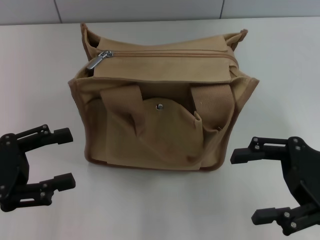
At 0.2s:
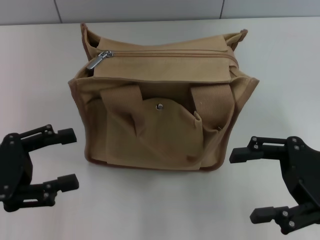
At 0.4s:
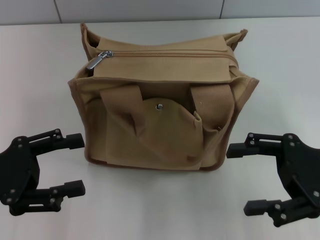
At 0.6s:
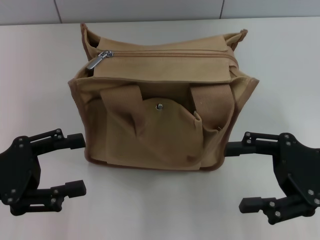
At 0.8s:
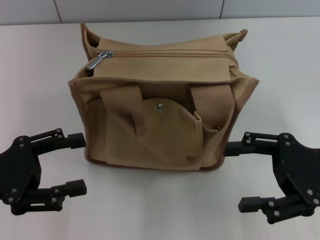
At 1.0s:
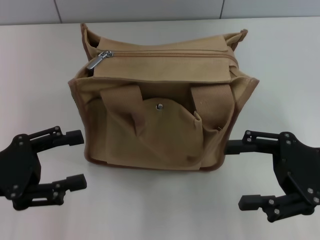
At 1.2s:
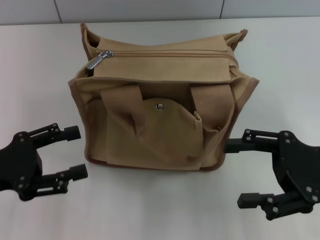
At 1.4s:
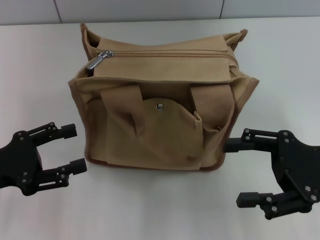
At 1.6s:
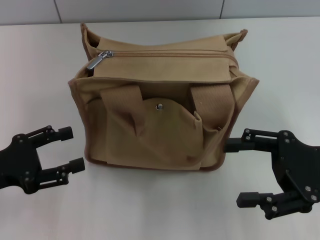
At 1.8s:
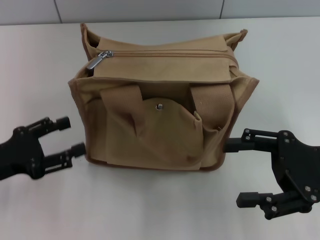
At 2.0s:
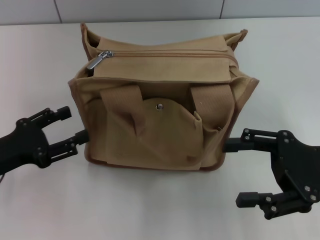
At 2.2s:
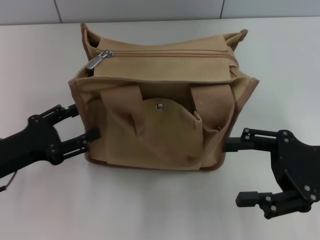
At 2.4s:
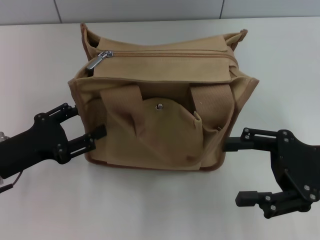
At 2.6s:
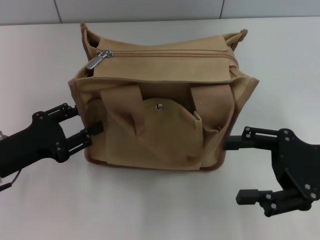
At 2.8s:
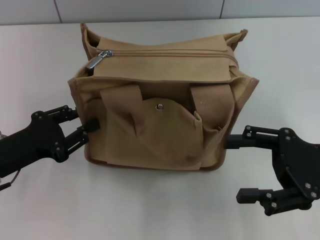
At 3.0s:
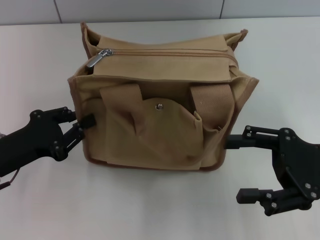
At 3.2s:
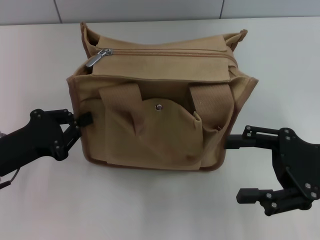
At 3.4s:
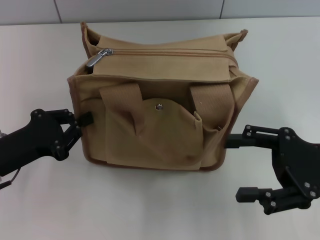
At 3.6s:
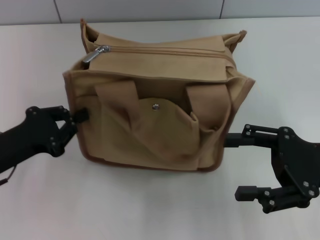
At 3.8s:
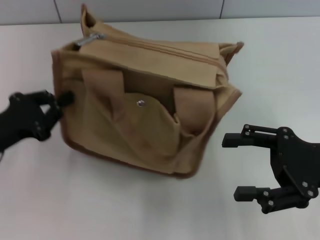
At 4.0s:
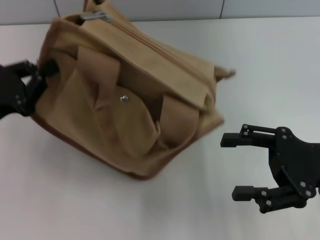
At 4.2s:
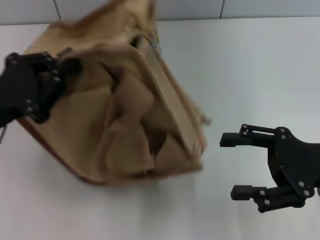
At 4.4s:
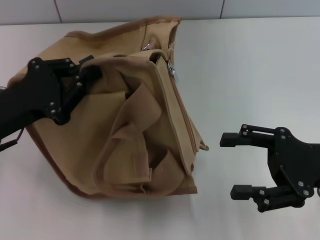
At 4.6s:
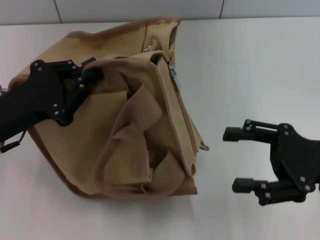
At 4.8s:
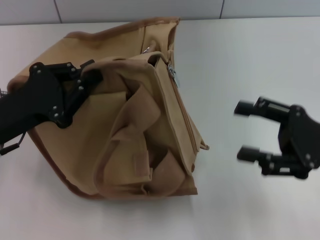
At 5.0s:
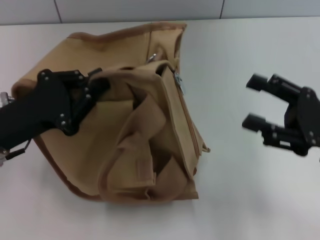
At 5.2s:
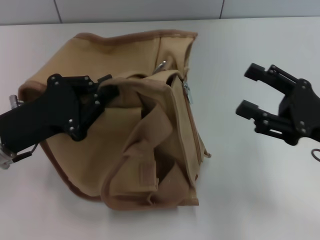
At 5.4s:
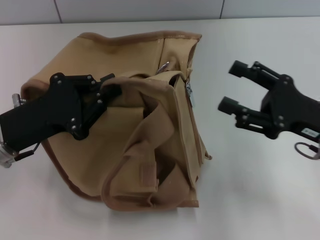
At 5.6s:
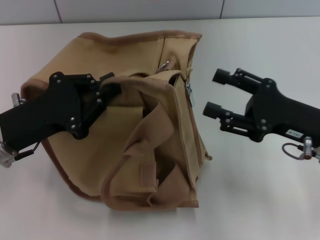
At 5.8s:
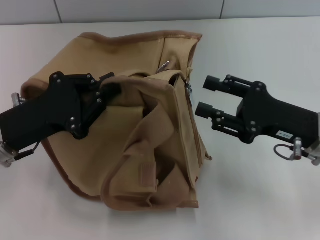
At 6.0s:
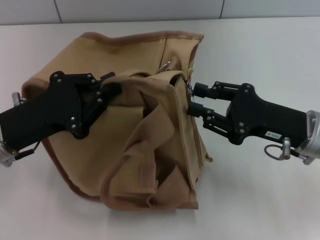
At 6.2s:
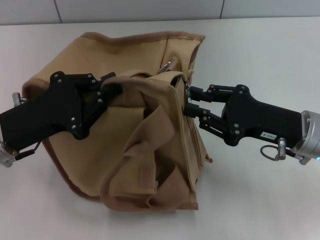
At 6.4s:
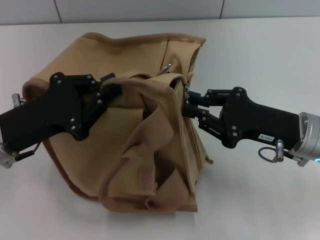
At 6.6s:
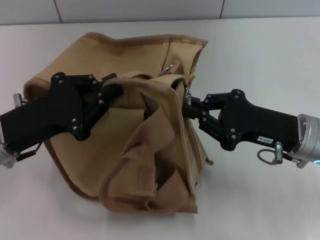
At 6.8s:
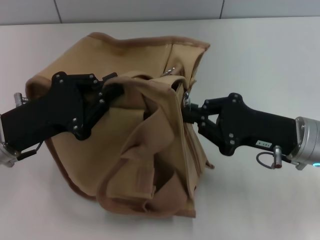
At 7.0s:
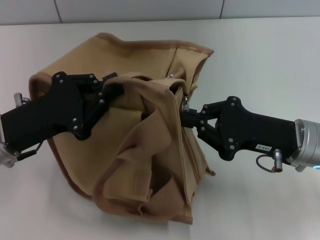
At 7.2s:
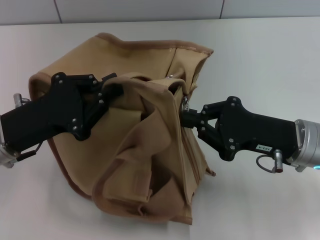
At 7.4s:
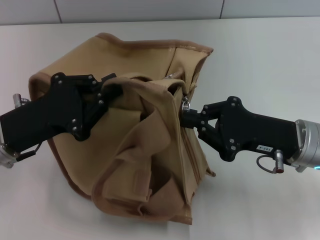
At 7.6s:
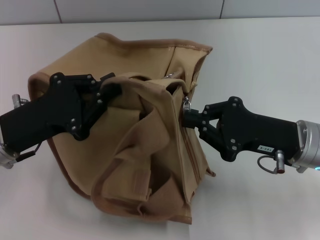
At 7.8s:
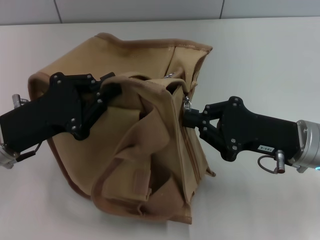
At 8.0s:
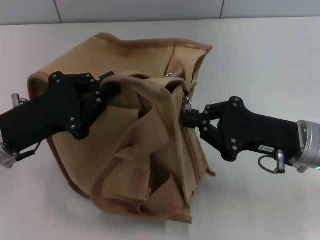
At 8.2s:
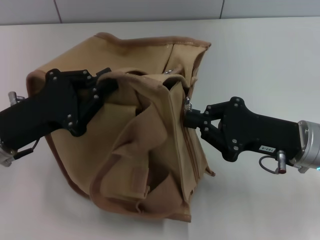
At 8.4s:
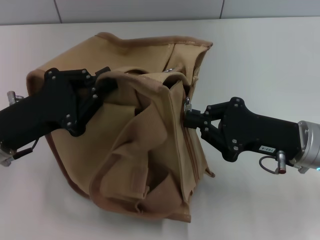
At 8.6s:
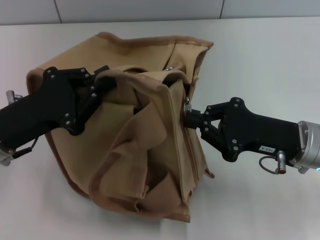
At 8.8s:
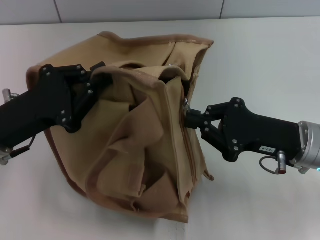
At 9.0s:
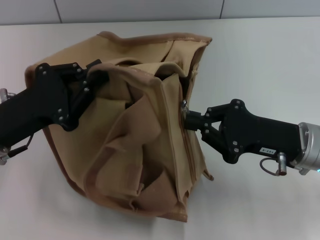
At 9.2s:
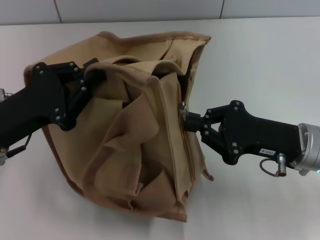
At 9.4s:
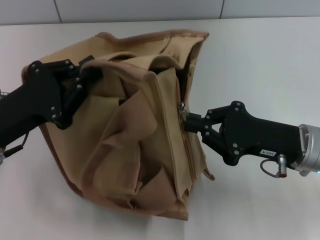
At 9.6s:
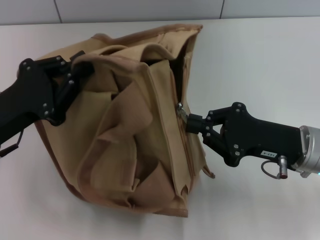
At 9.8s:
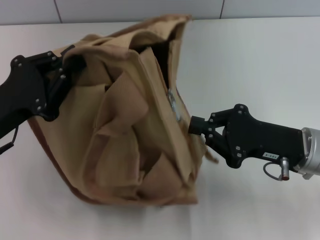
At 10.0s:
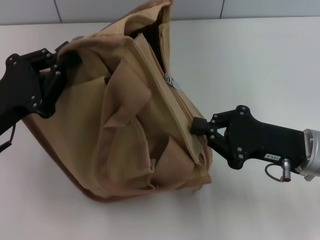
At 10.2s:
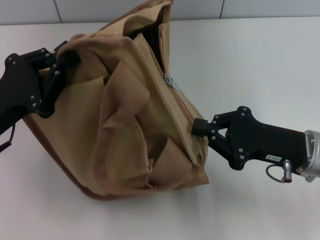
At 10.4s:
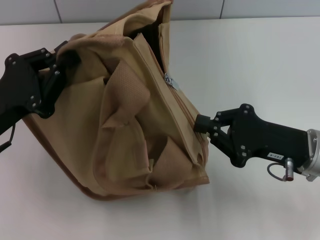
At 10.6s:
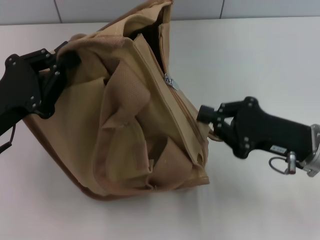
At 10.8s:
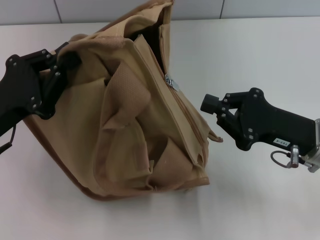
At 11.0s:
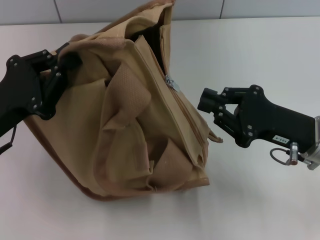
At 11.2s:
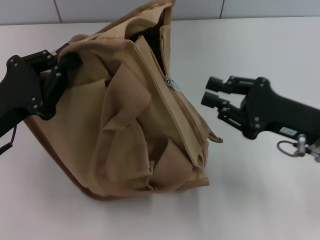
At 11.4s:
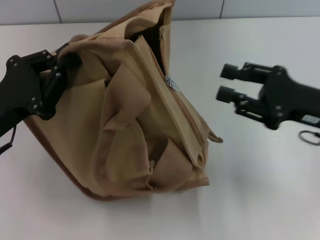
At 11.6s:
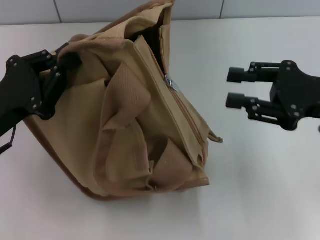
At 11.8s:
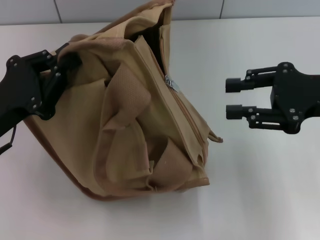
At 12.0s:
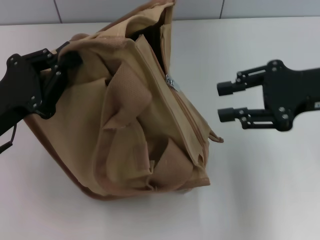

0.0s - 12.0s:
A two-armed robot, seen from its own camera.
0.0s - 1.6s: There are only small adjustments of the grippers.
1.6s - 3.0s: The left gripper closes.
3.0s - 4.4s: The left gripper moves approximately 5 cm, and closes.
4.4s - 6.0s: The right gripper ends up approximately 5 cm from where it was.
6.0s - 7.6s: The right gripper closes.
7.6s - 9.0s: The two grippers keep their place.
10.4s - 12.0s: The right gripper is displaced upward by some 10 cm, and opens up.

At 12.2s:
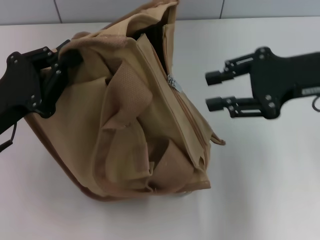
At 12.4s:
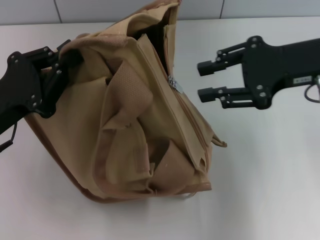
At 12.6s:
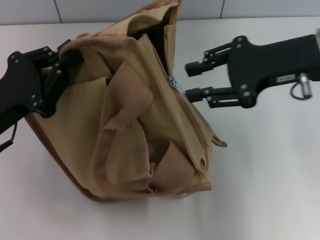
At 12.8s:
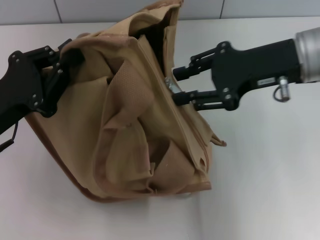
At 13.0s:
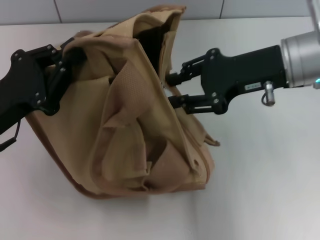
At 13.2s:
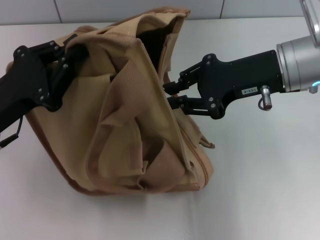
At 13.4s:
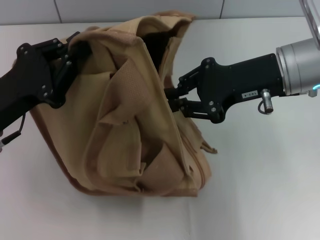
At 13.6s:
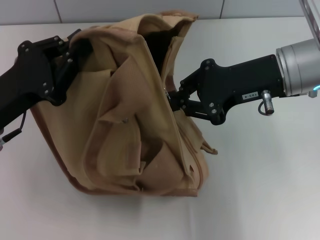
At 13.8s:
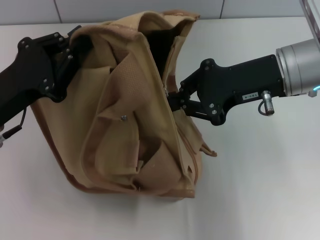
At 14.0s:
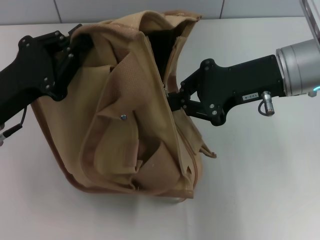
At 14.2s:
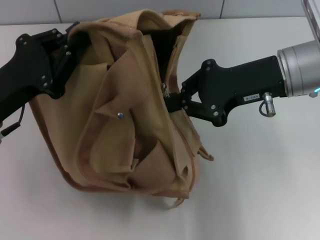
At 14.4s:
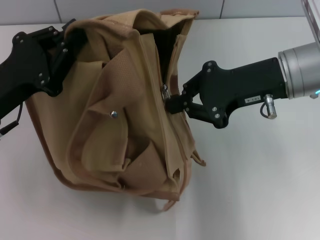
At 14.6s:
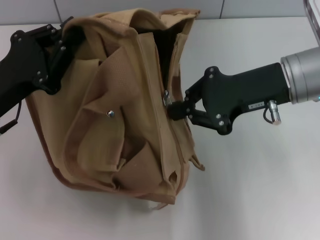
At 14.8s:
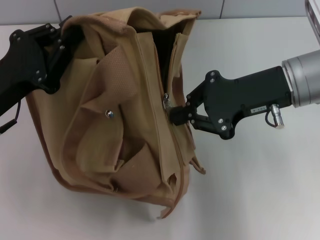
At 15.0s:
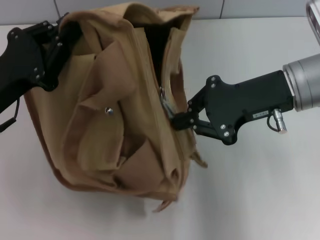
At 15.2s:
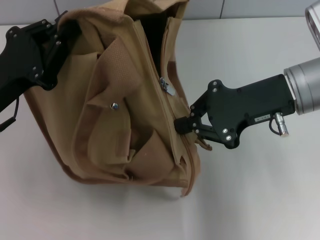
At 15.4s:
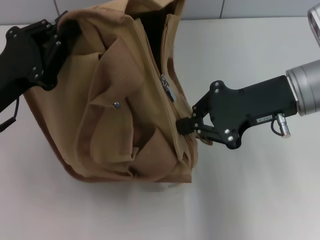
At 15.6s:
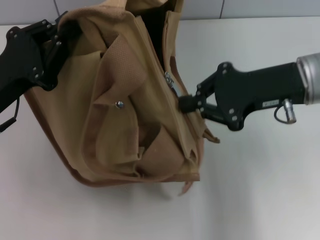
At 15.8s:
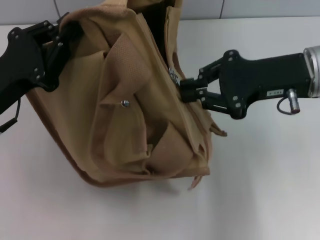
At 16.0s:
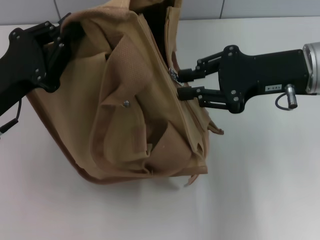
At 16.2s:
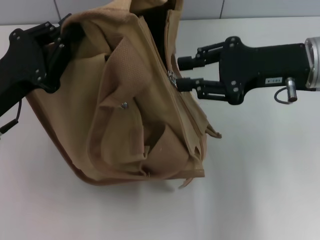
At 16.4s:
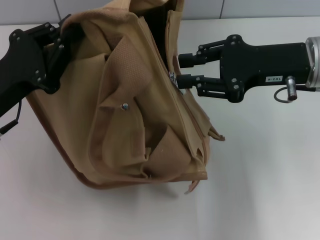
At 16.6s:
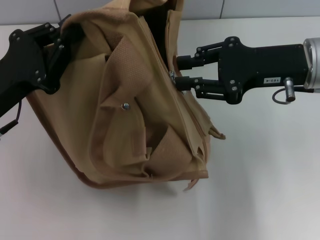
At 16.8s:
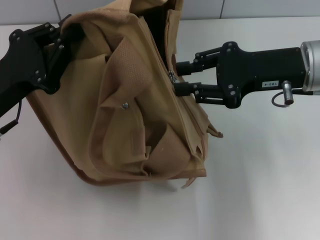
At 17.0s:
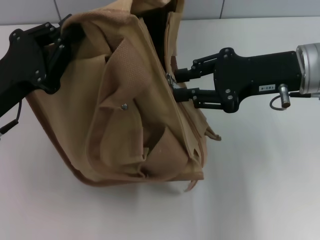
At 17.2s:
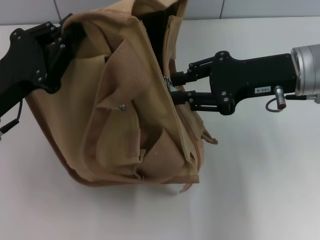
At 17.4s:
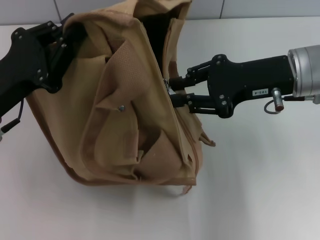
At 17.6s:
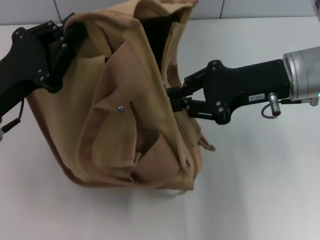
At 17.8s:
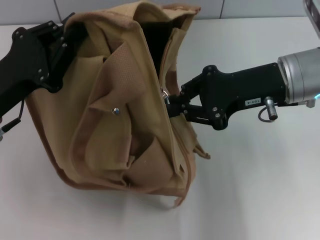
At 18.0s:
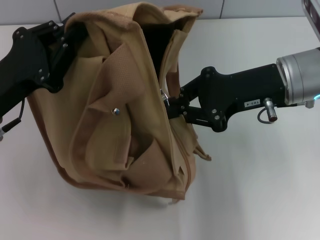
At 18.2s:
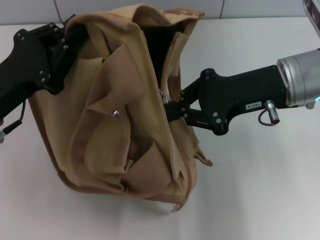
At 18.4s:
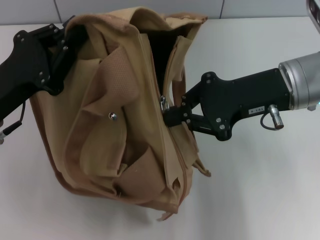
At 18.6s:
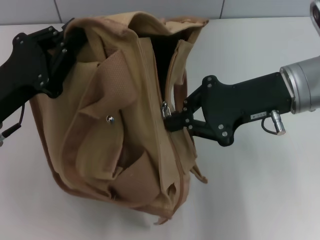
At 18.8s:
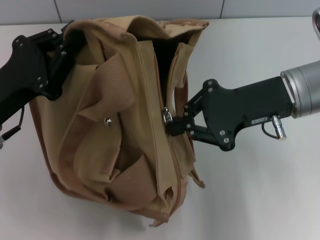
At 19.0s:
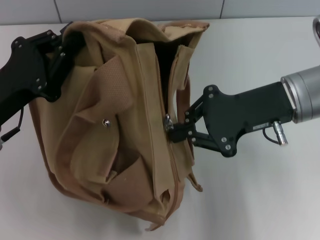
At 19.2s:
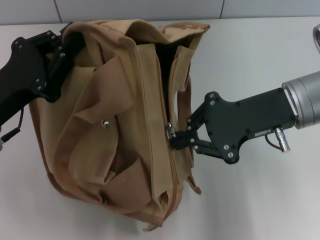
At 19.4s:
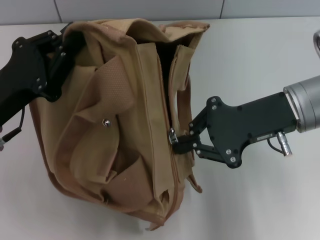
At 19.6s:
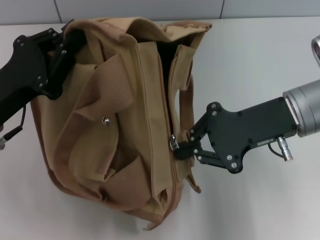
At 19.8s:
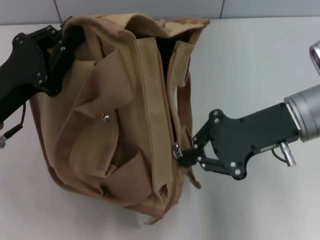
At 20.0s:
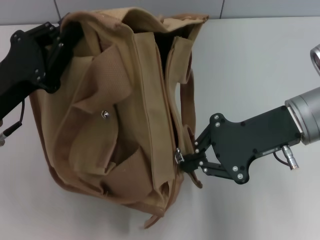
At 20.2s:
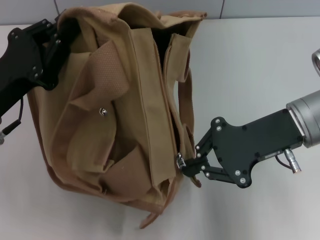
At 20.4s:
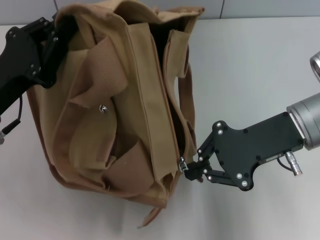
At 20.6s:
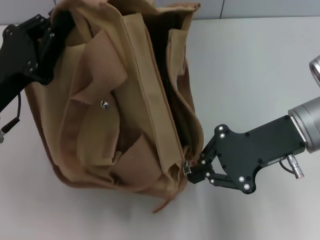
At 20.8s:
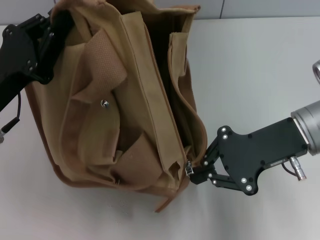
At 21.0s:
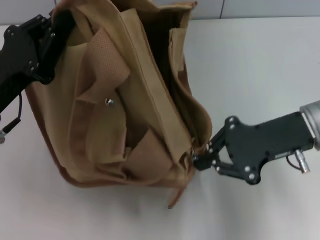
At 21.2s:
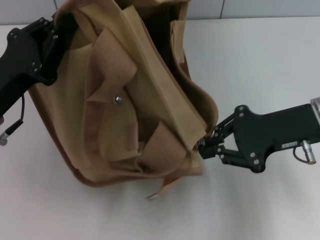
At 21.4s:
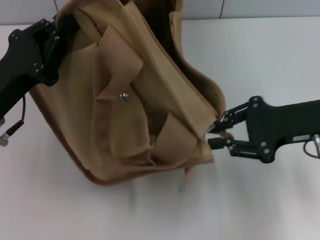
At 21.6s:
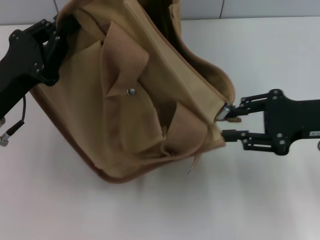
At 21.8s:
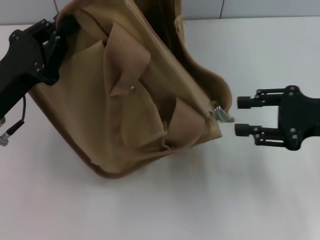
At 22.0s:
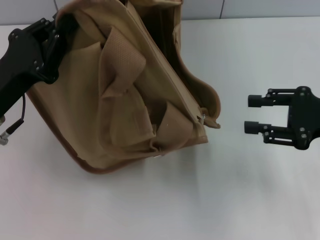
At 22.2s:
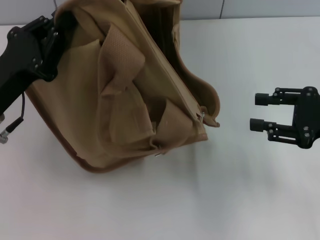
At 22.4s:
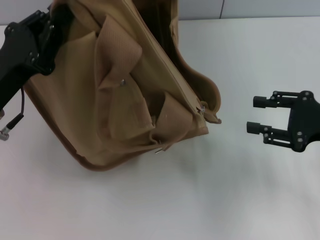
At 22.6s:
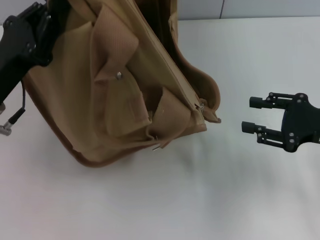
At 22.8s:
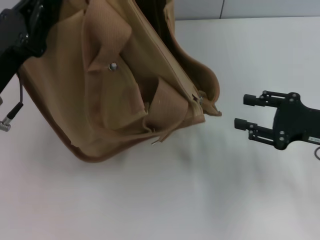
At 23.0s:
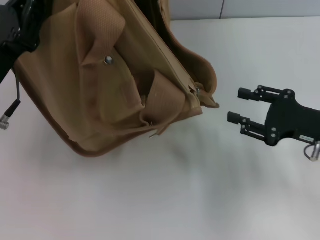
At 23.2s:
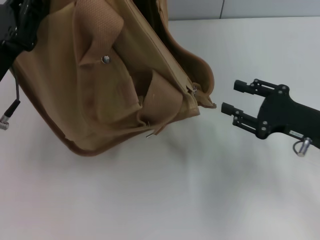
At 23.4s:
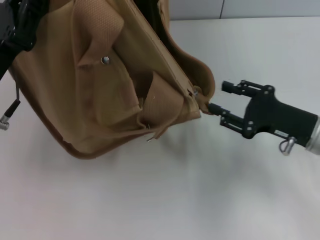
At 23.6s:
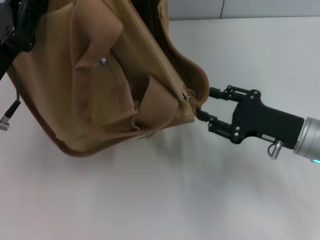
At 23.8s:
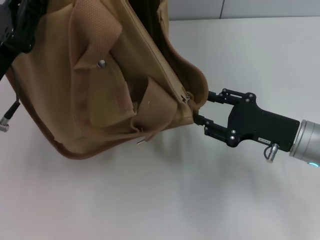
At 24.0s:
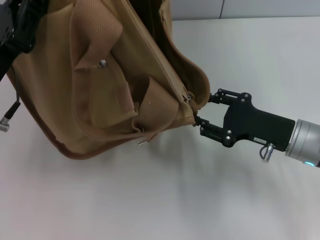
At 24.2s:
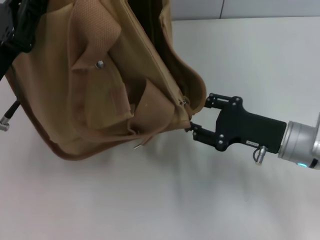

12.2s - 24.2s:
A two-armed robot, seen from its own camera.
Step, 12.2s - 21.6s: Pull open the zipper with your right hand.
12.2s - 13.8s: The right gripper travels to the left by roughly 5 cm, and closes its fingers.
15.2s - 16.6s: The right gripper opens its fingers.
16.6s - 18.2s: The right gripper closes.
21.2s - 22.6s: The right gripper travels to the right by roughly 10 cm, and opens its fingers.
22.6s - 24.2s: The right gripper shifts roughly 10 cm to the left and downward.
